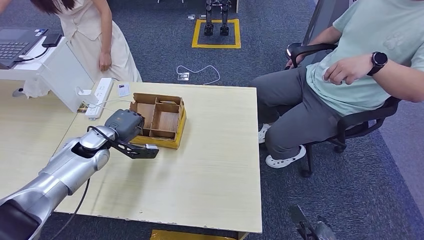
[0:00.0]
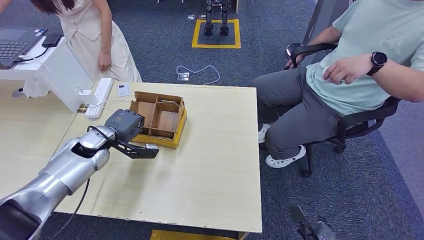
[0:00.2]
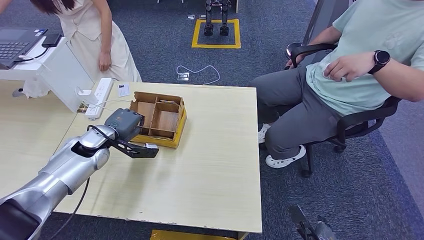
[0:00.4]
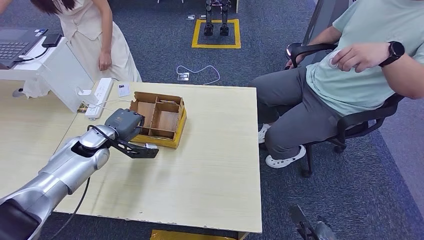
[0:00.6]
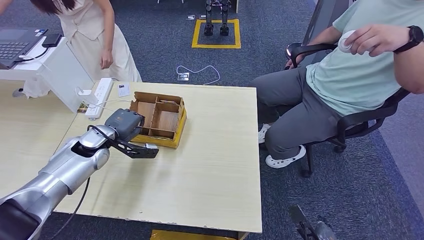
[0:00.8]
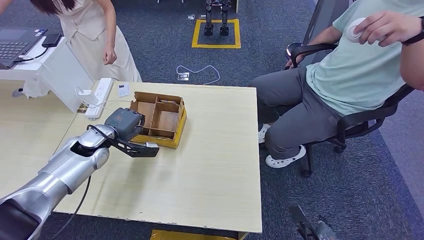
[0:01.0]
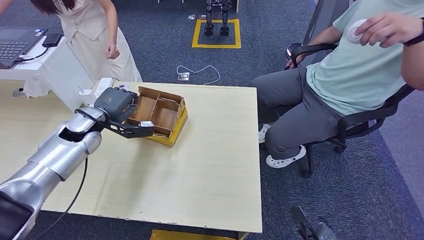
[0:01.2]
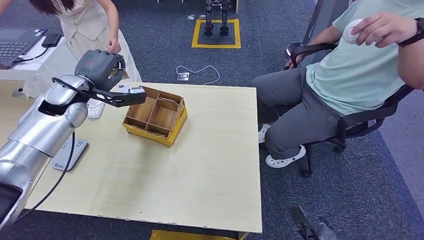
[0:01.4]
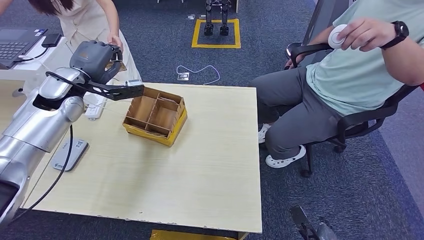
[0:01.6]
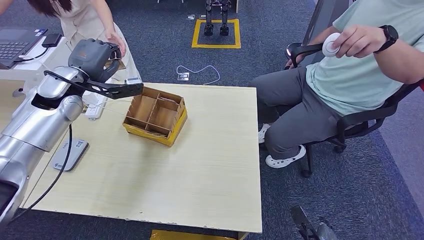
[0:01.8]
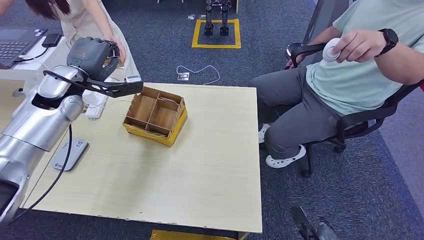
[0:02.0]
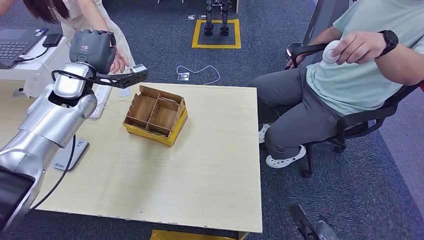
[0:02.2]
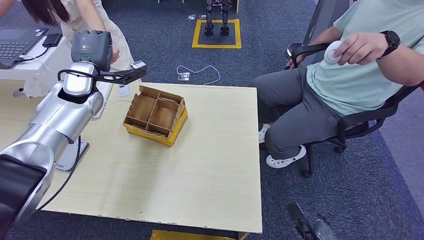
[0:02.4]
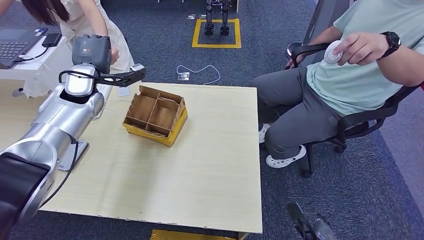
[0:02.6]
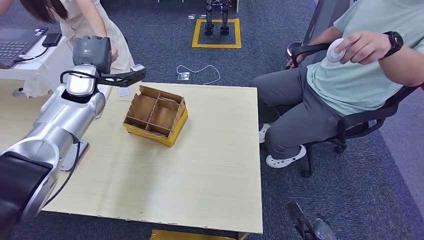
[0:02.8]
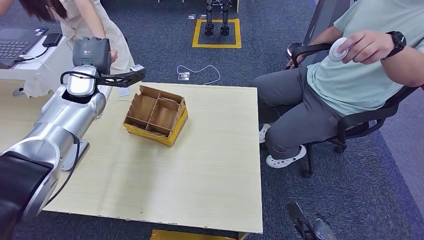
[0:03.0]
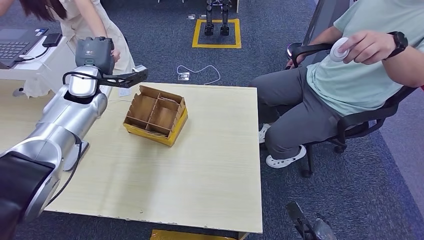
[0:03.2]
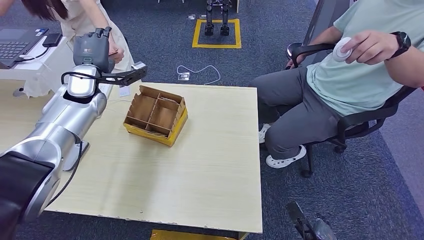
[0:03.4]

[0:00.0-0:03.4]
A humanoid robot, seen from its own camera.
Step, 0:01.0 to 0:03.4: Hand the room key to the person.
0:00.0 to 0:01.6: The left hand travels upward by approximately 15 cm.
0:01.6 to 0:03.4: The left hand ends up approximately 5 cm from where it was.
